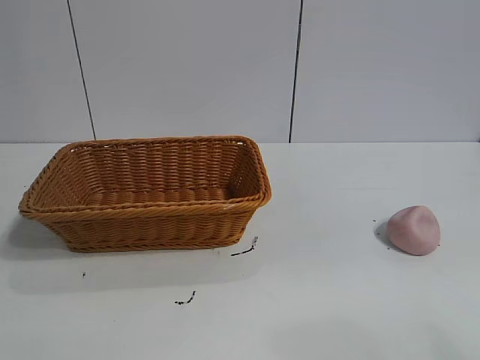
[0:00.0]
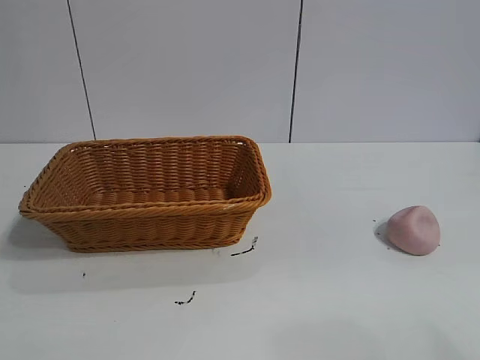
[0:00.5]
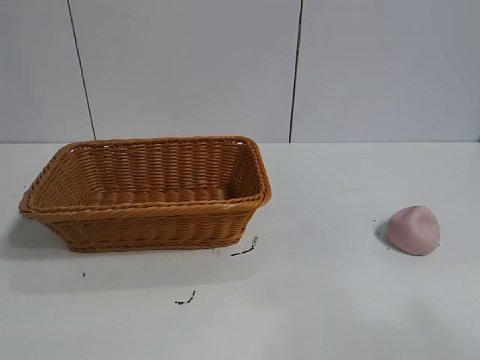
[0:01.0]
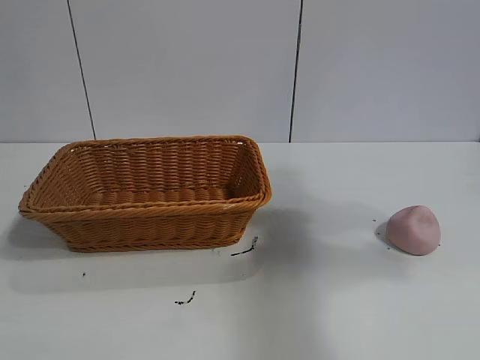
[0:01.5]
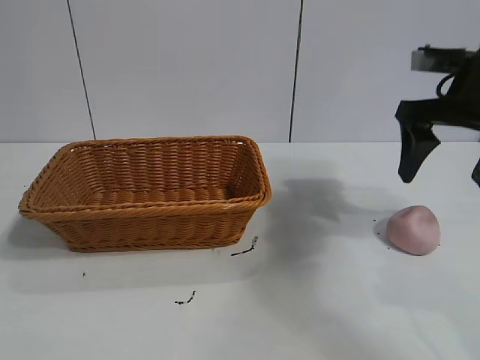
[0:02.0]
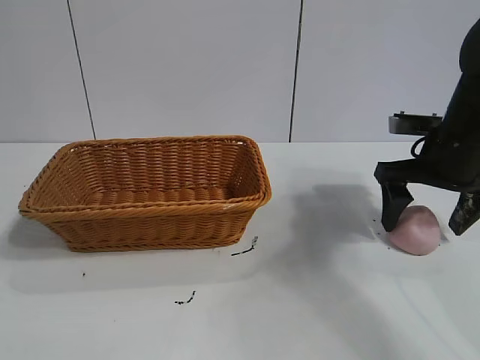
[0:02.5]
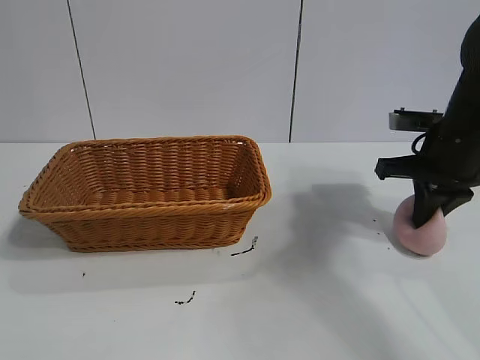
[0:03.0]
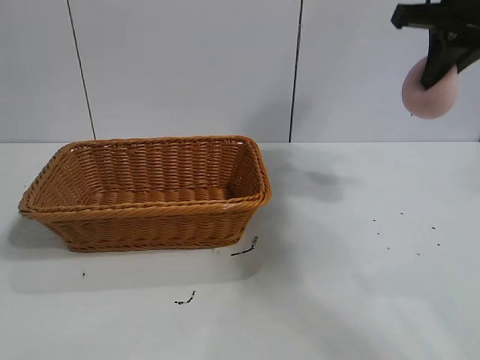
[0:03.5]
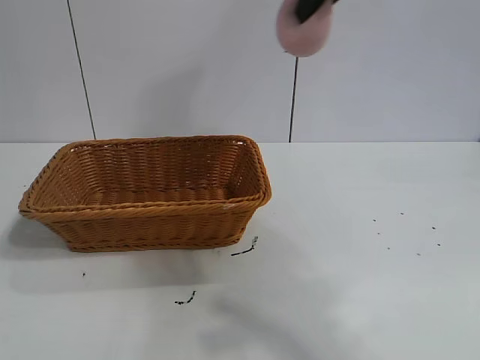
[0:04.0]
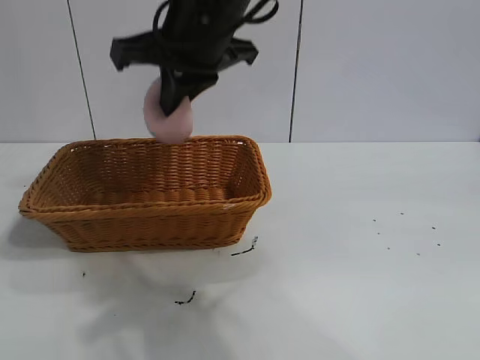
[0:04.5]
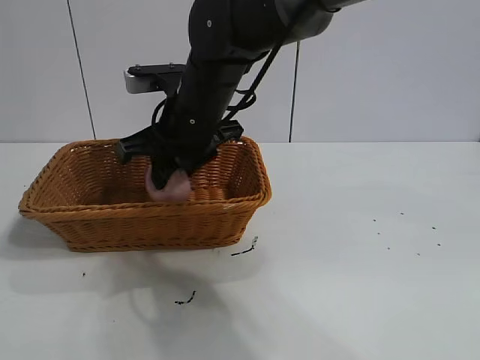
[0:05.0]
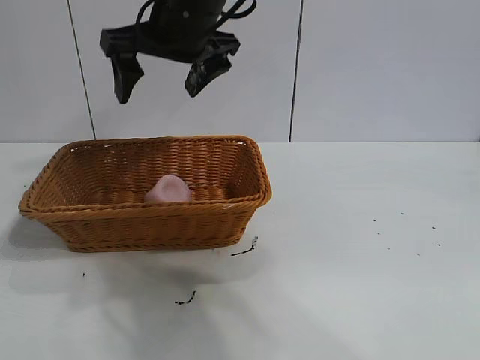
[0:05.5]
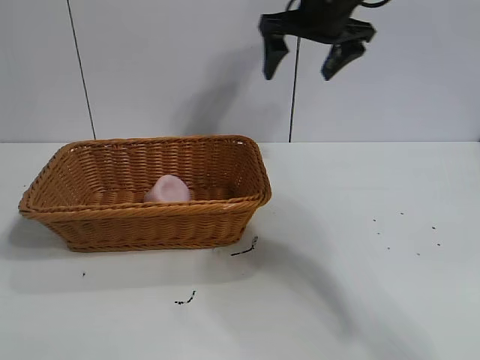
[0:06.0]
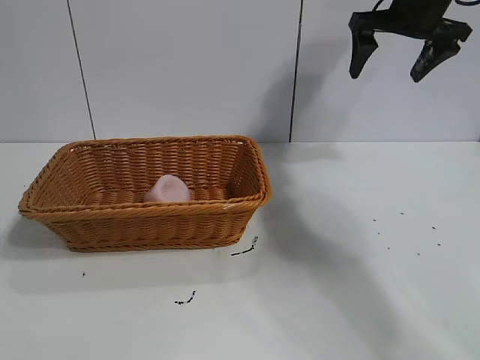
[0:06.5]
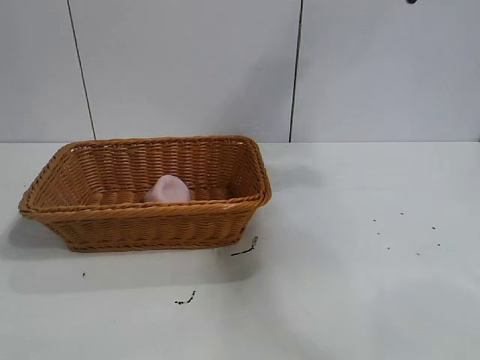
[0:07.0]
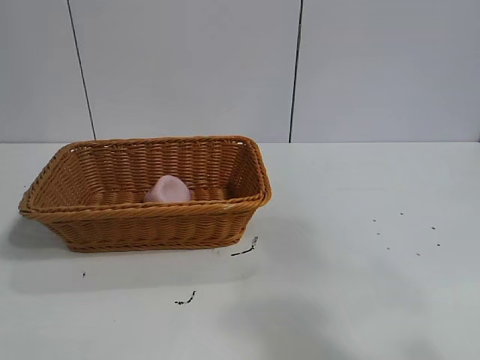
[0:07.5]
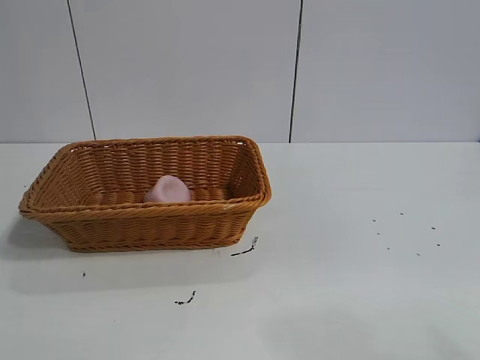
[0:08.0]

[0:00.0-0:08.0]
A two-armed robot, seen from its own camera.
Task of the whole recording: pick up the peach and put it into the basket.
Step, 0:01.0 to 0:03.0: Grasp the peach with right gripper.
Step, 0:03.5 to 0:05.0: Place the peach in the basket with right gripper.
